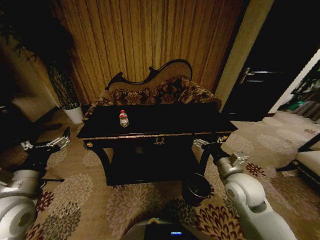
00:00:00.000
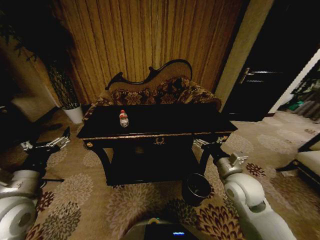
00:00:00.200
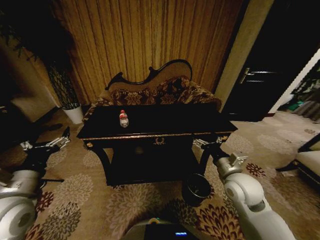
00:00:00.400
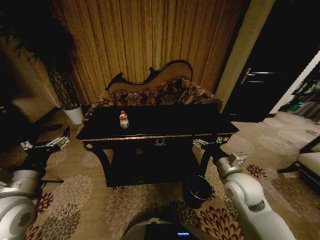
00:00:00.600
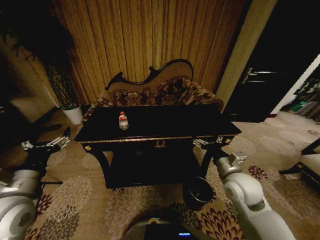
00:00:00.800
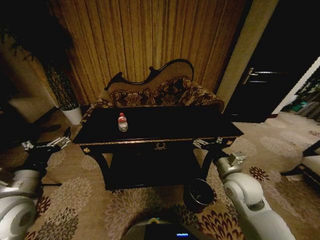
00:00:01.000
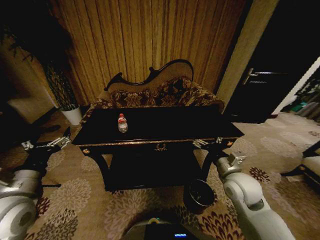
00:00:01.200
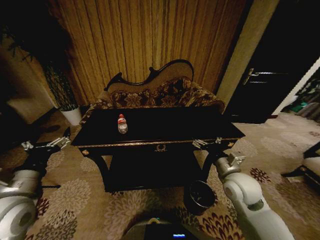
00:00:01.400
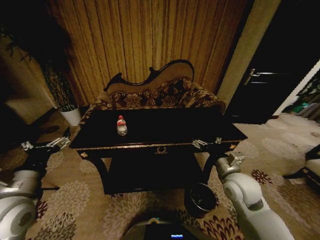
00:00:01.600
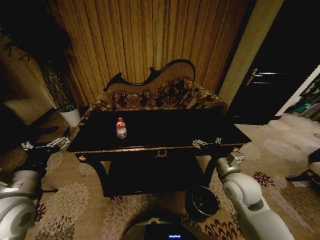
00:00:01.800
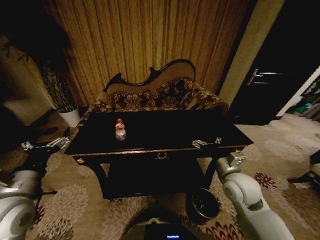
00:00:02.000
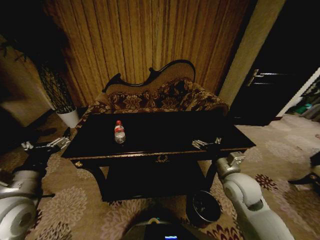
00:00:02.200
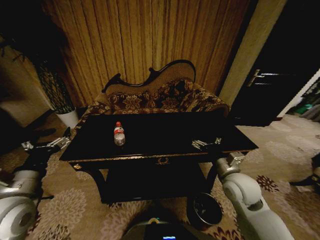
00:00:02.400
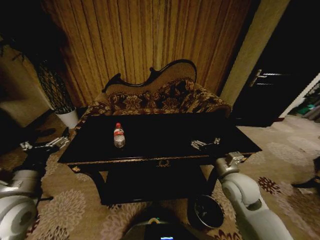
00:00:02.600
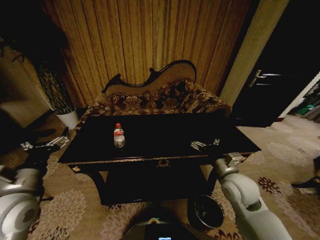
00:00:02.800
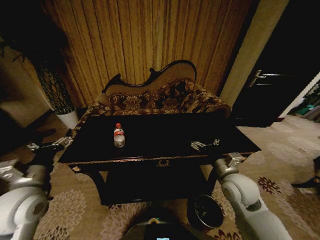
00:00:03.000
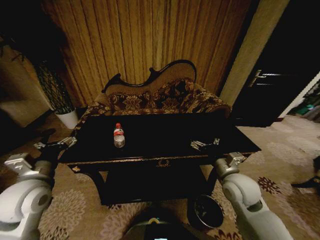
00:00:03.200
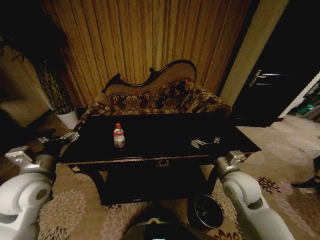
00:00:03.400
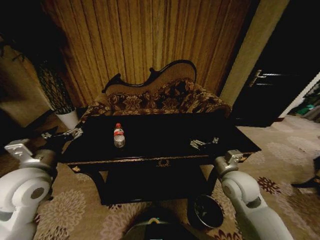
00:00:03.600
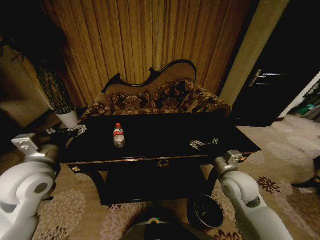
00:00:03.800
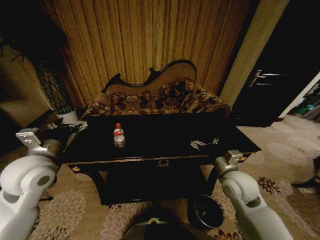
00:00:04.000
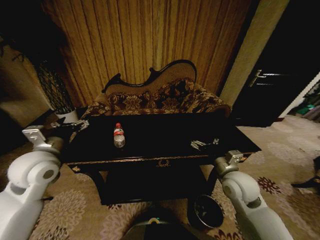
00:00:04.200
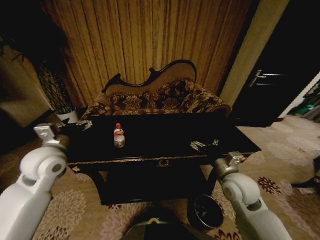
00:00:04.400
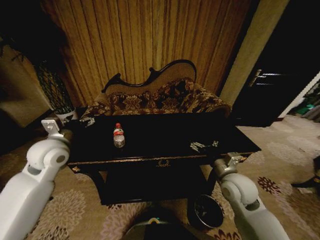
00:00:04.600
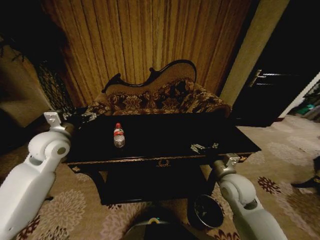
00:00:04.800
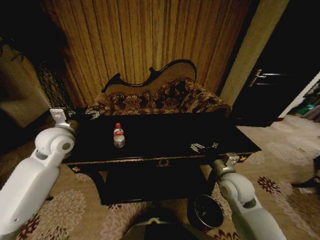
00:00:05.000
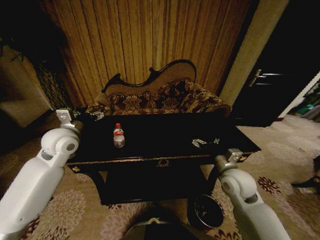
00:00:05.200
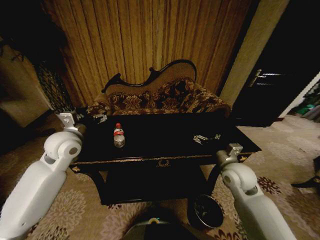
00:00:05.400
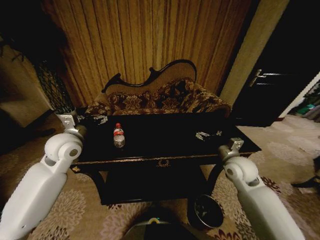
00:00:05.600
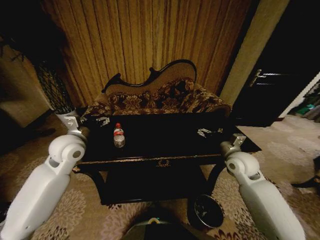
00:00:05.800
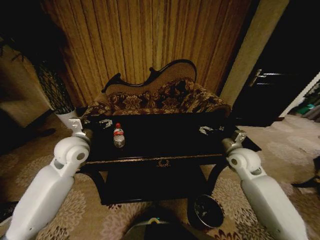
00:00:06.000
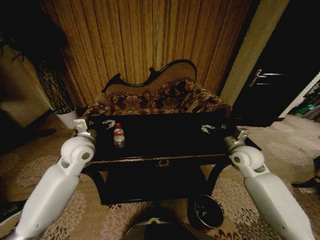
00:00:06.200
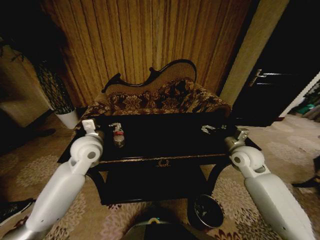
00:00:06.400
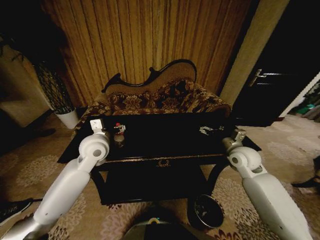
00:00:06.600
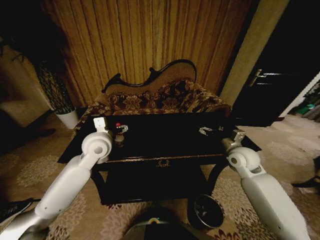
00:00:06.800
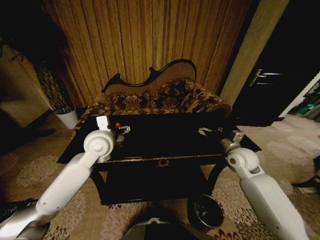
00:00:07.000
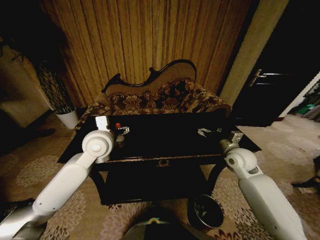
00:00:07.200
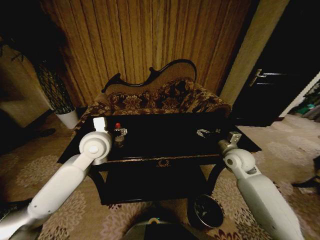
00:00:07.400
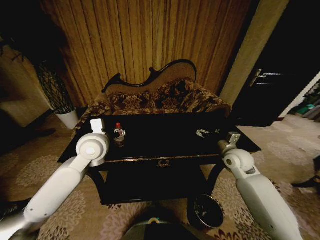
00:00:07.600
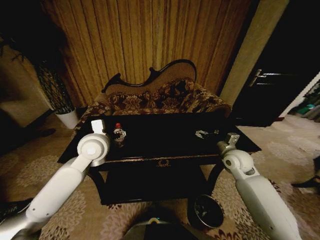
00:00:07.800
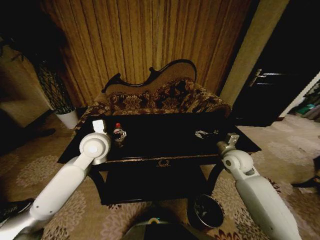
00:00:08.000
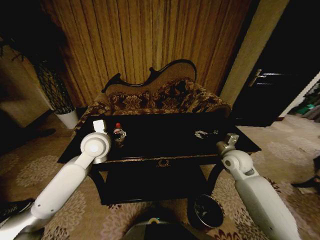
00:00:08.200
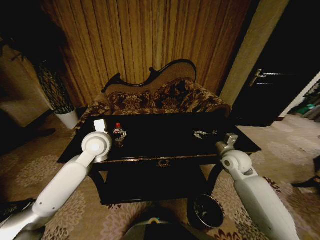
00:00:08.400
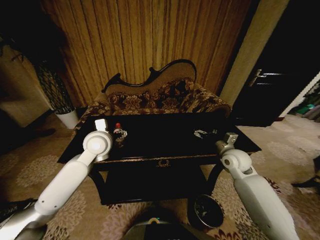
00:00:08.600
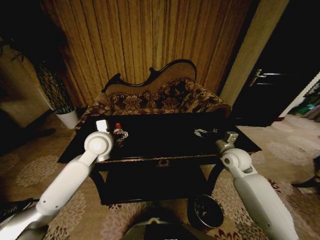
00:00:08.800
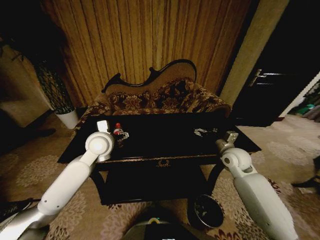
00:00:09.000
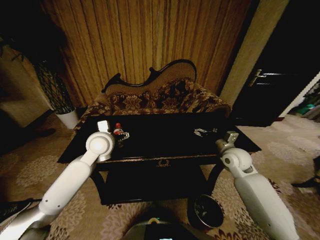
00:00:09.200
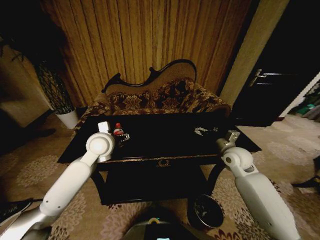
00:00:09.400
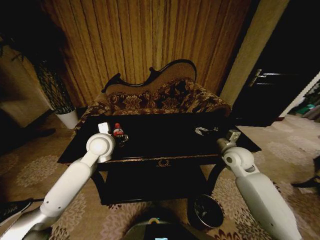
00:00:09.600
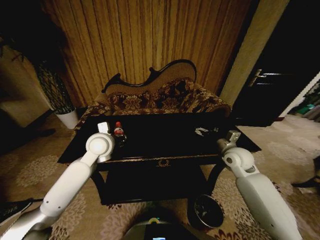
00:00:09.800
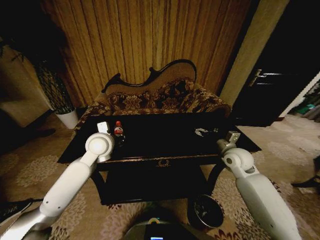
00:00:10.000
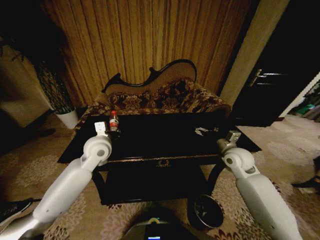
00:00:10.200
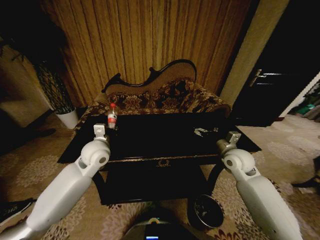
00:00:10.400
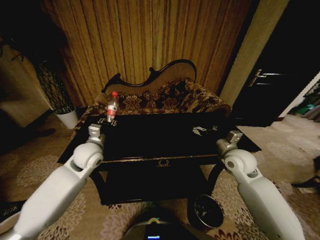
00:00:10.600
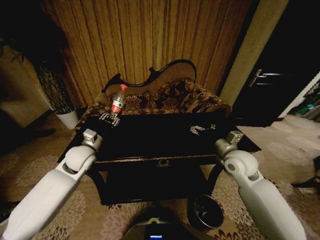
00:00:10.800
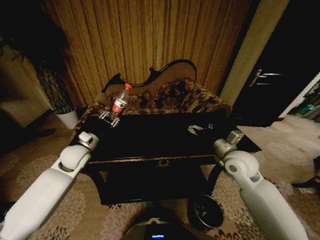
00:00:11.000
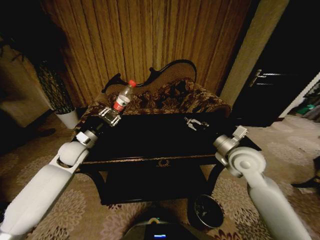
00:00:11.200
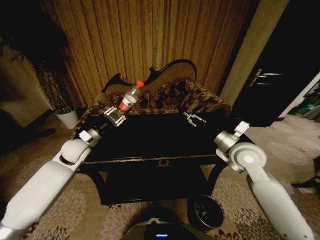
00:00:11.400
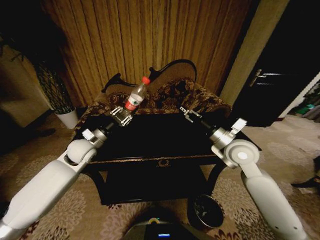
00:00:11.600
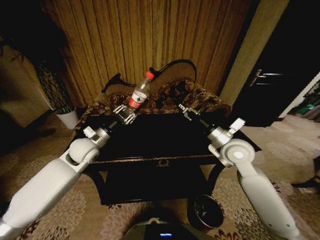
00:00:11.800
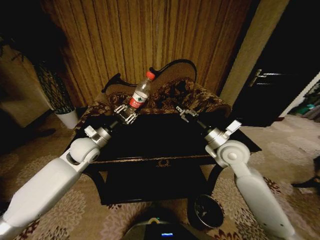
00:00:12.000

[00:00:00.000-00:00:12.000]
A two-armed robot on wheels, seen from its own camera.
Task of the whole recording: Move to the front of the table and place the trash on the table into the trash bin.
00:00:00.000 to 00:00:01.600: Both grippers stay about where they are.
00:00:03.000 to 00:00:04.400: The left gripper shifts approximately 10 cm forward.
00:00:04.400 to 00:00:06.000: The left gripper is displaced to the right by about 5 cm. Meanwhile the right gripper is displaced forward and to the right by about 15 cm.
00:00:06.000 to 00:00:07.600: The left gripper is displaced to the right by roughly 5 cm.
00:00:07.600 to 00:00:09.000: The grippers move only a little.
00:00:09.000 to 00:00:10.400: The left gripper closes up.
00:00:10.400 to 00:00:12.000: The left gripper travels to the left by about 5 cm. The right gripper travels to the left and upward by some 10 cm.

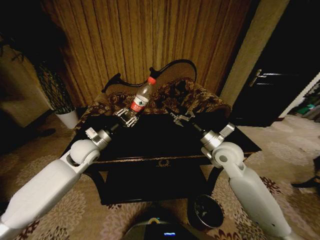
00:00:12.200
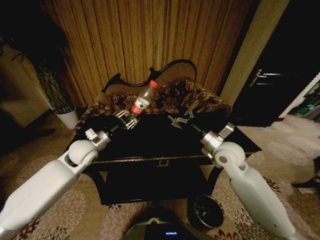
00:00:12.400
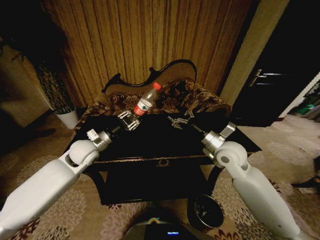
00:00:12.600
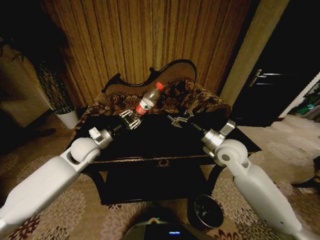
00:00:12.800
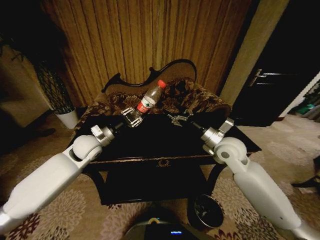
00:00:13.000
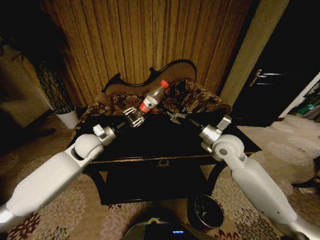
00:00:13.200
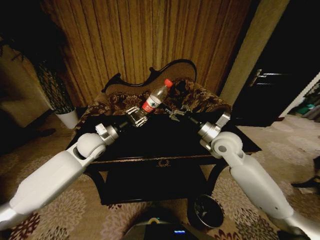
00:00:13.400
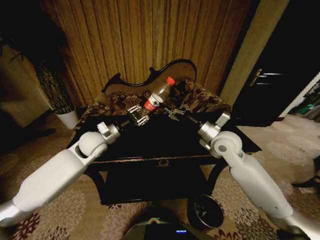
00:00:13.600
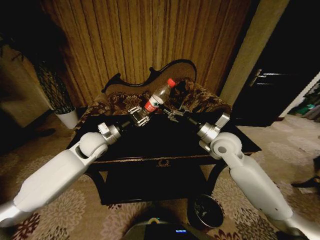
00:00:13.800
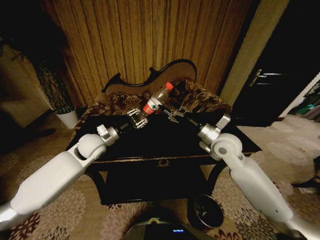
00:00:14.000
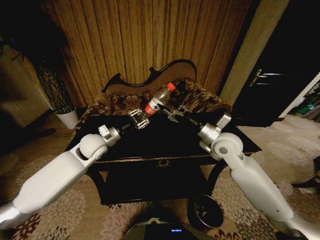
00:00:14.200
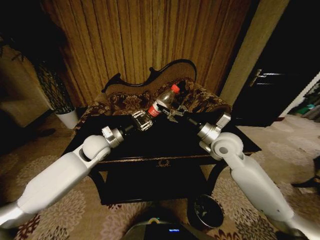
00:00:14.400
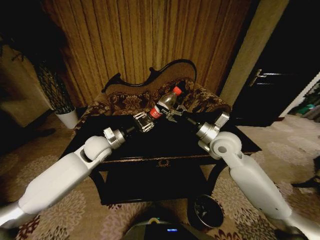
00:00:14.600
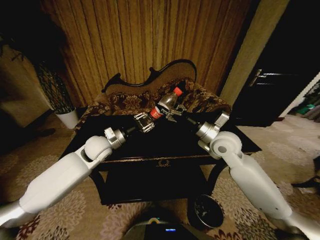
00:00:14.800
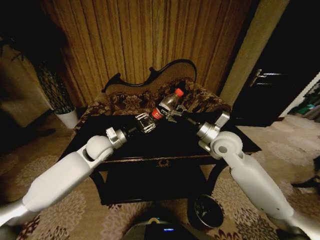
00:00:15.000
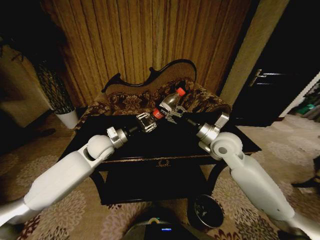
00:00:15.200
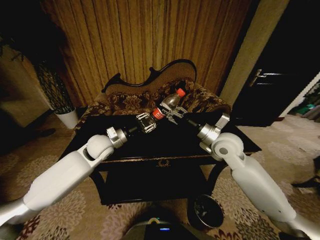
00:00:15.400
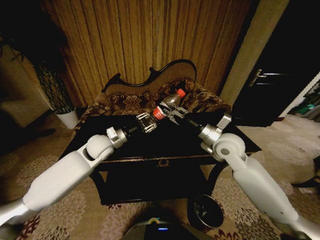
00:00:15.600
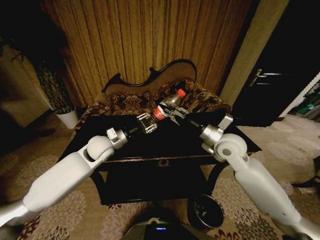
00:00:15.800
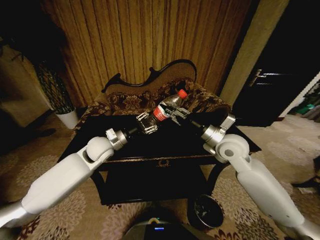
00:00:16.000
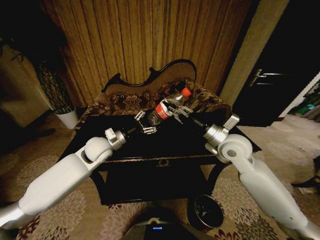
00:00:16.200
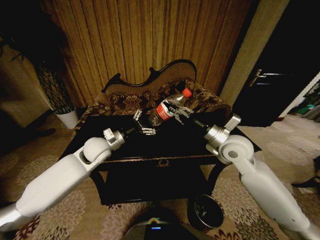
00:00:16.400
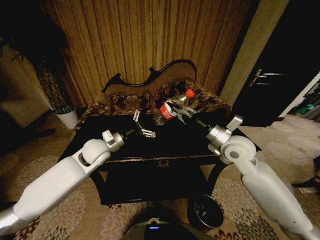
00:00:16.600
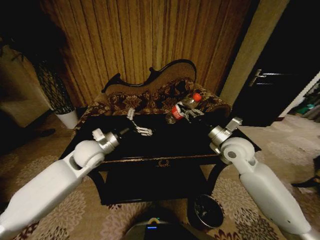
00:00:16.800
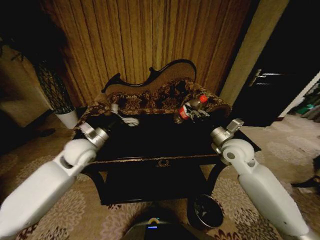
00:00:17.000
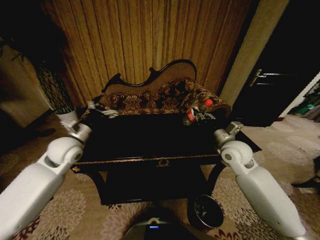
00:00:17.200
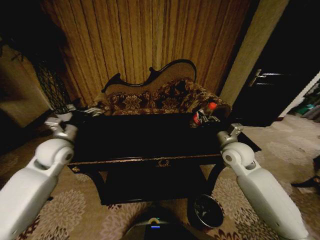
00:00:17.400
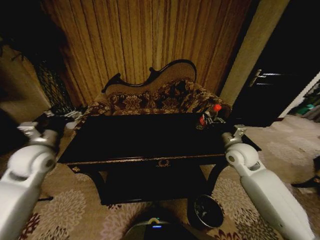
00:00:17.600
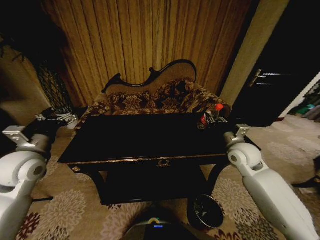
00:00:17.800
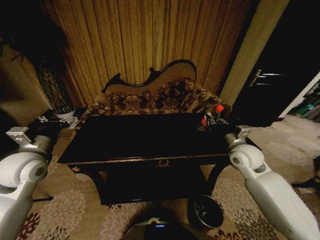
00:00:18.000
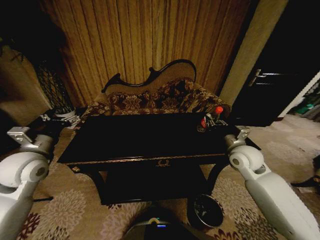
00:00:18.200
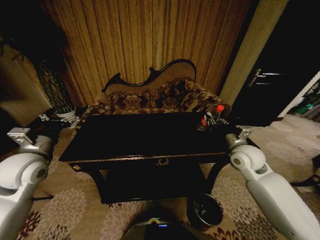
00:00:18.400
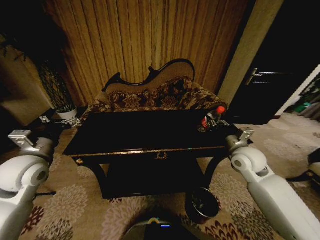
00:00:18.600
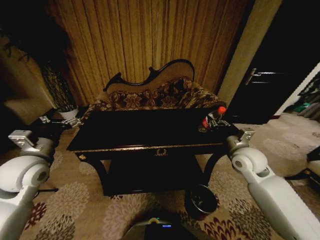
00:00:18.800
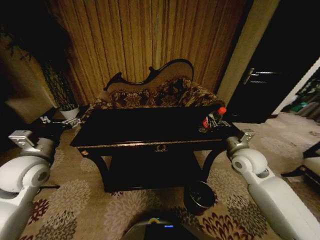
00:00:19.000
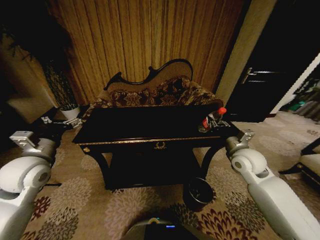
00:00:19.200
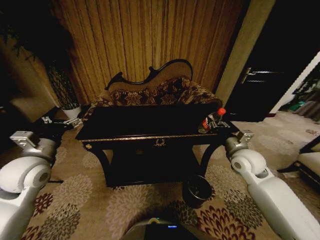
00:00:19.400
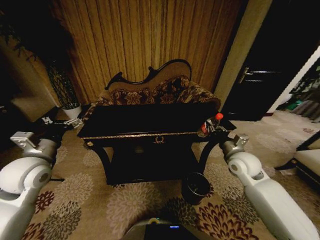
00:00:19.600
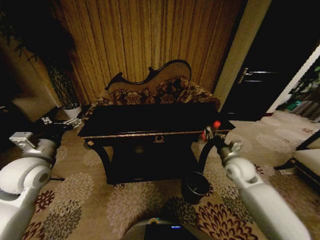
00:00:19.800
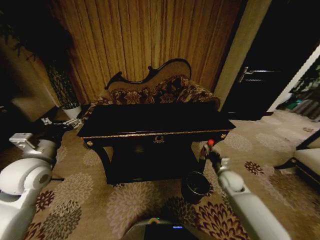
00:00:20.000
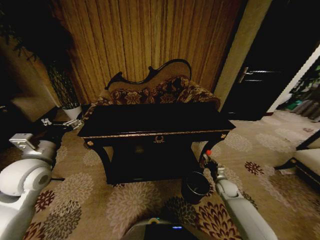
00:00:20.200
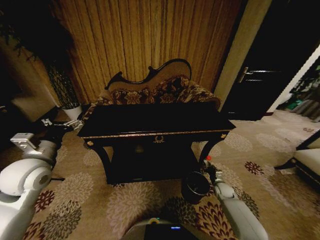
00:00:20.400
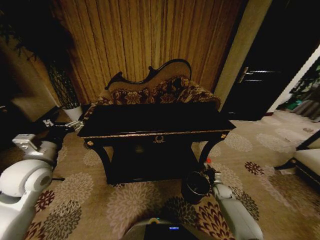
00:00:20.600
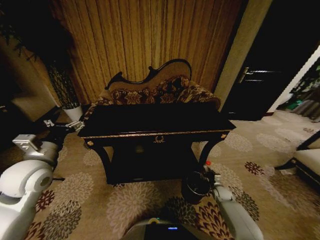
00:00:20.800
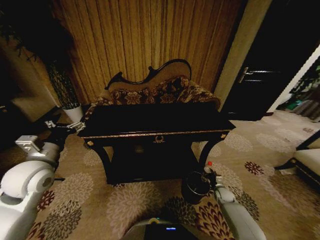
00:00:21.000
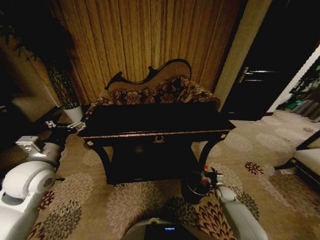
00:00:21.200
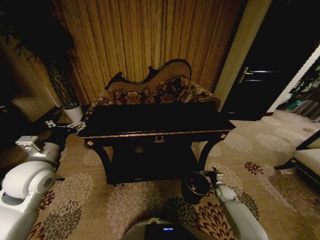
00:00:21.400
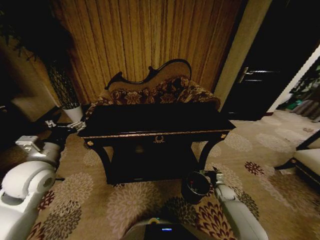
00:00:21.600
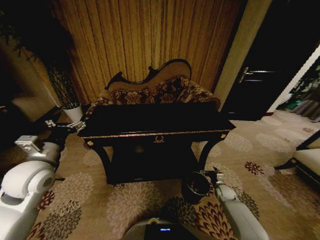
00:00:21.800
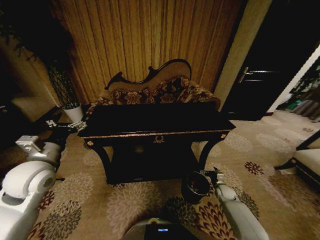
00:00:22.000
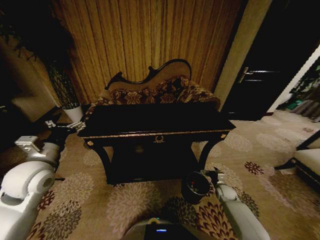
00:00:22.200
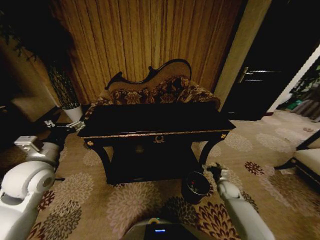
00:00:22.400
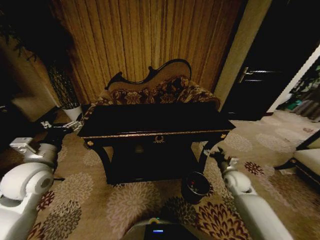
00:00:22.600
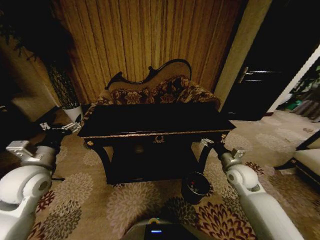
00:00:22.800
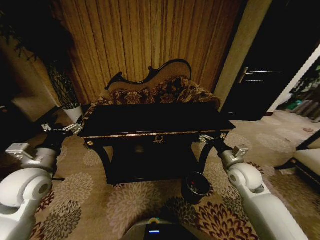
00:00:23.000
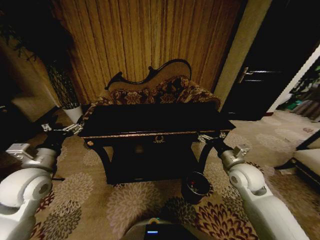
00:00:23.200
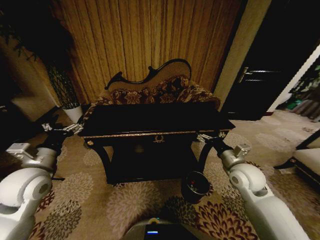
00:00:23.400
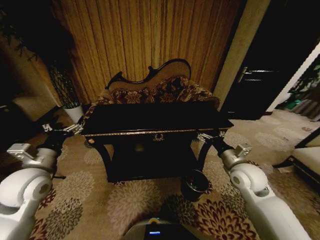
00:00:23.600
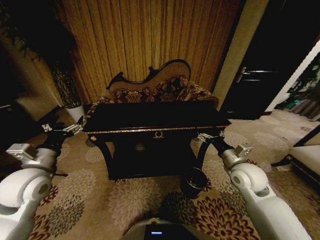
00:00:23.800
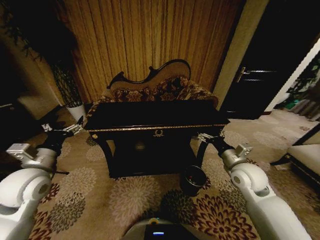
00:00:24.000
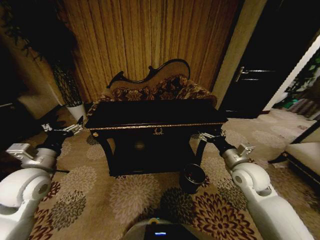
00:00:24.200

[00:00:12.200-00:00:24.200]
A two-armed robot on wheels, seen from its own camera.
Task of the whole recording: Move to the front of the table and place the trash on the table into the trash bin.
00:00:12.200 to 00:00:15.200: There are only small adjustments of the grippers.
00:00:15.200 to 00:00:16.600: The left gripper opens its fingers. Meanwhile the right gripper closes.
00:00:16.600 to 00:00:18.200: The left gripper is displaced to the left and backward by roughly 20 cm, while the right gripper heads to the right and downward, covering some 10 cm.
00:00:18.200 to 00:00:19.800: The right gripper moves downward, roughly 10 cm.
00:00:19.800 to 00:00:21.200: The right gripper travels downward by about 25 cm, and opens.
00:00:21.200 to 00:00:22.600: The right gripper shifts some 20 cm upward, and opens up.
00:00:22.600 to 00:00:24.200: The right gripper is displaced upward and to the left by roughly 15 cm.
